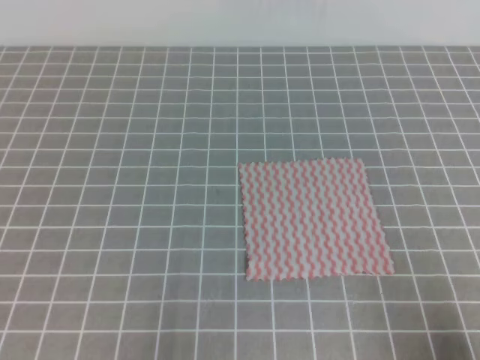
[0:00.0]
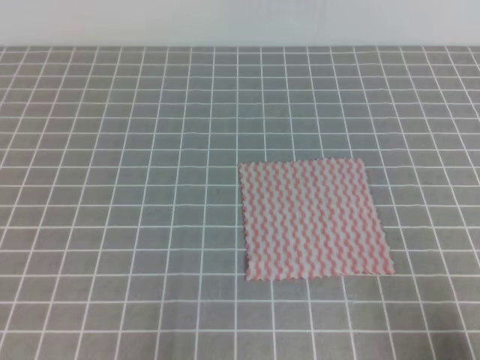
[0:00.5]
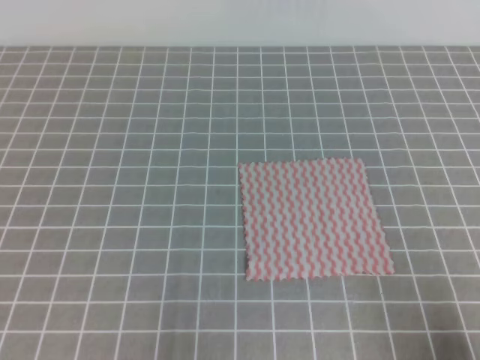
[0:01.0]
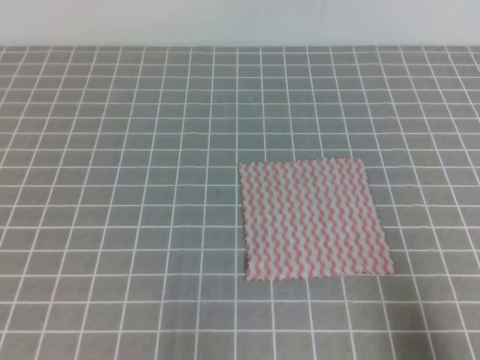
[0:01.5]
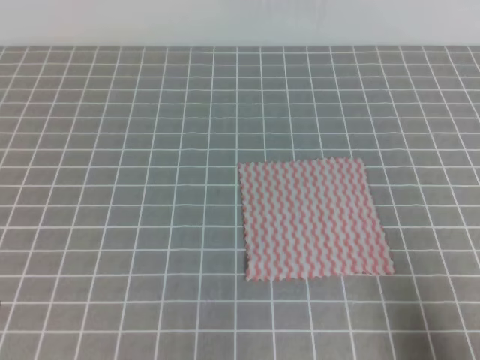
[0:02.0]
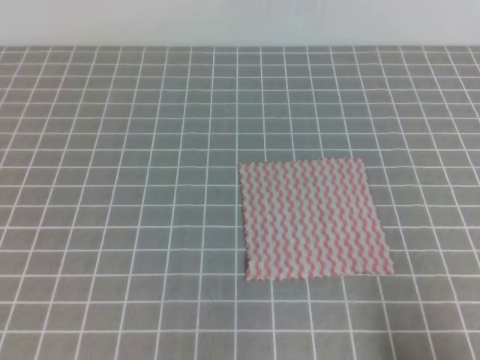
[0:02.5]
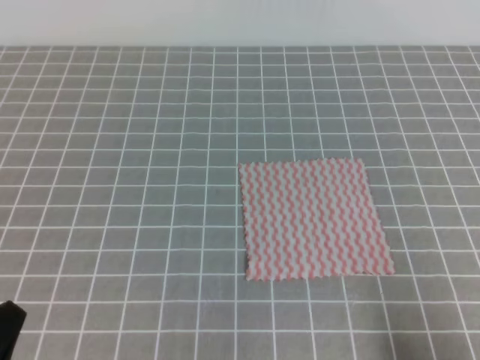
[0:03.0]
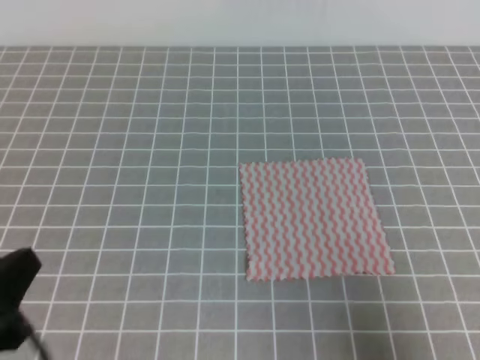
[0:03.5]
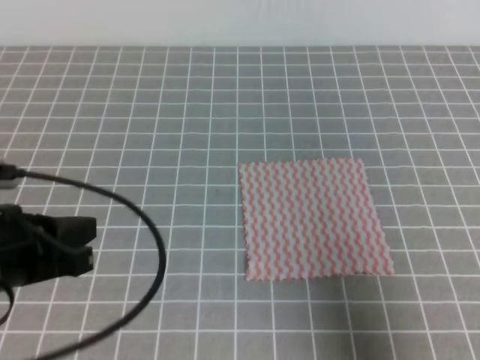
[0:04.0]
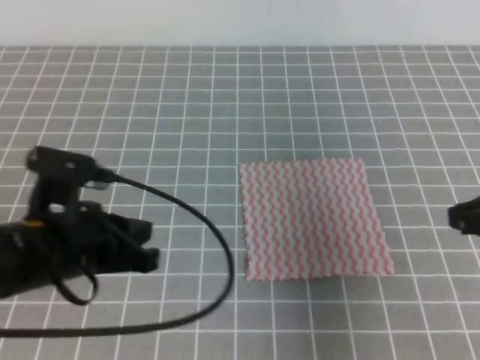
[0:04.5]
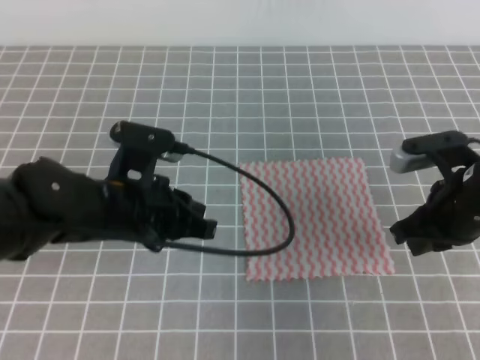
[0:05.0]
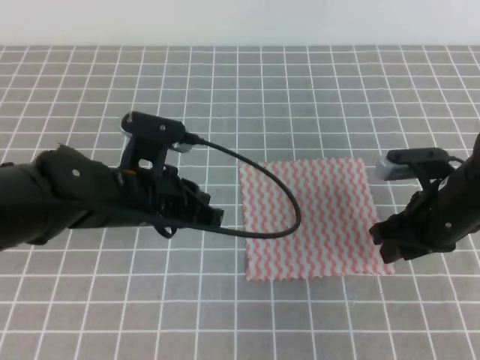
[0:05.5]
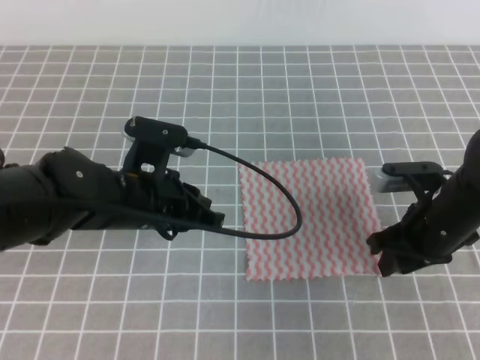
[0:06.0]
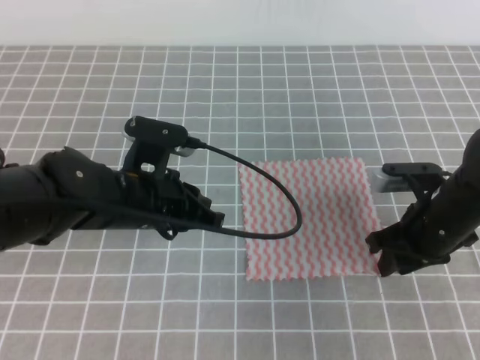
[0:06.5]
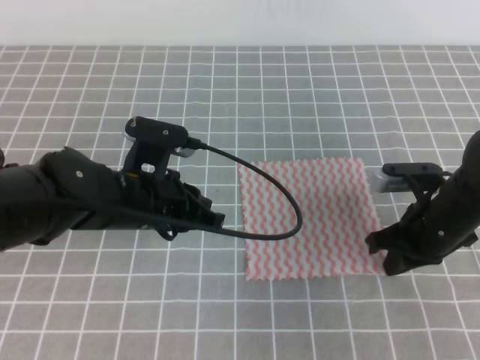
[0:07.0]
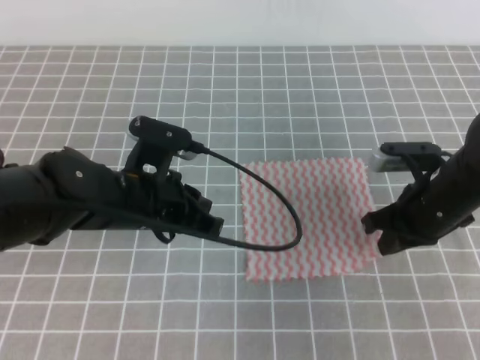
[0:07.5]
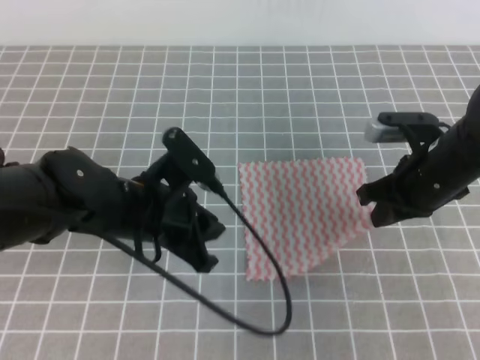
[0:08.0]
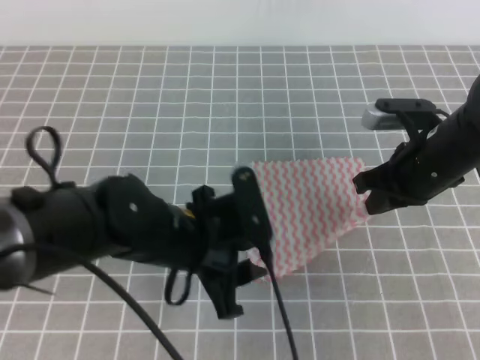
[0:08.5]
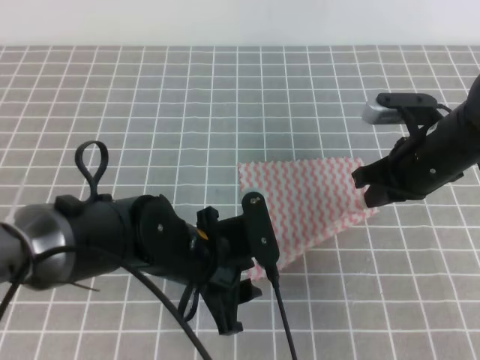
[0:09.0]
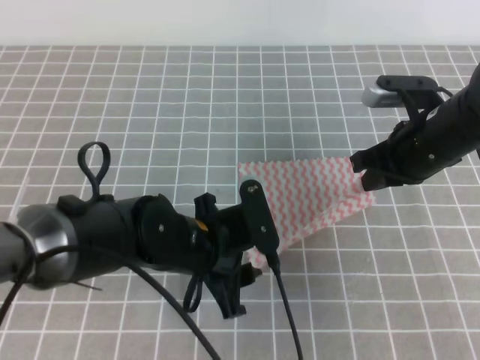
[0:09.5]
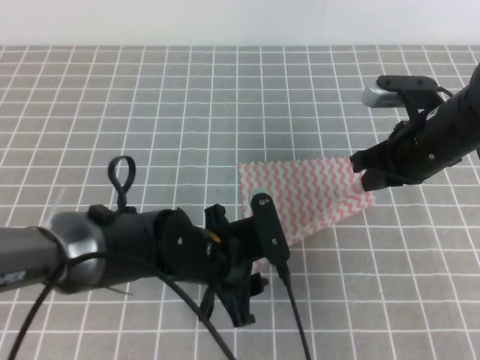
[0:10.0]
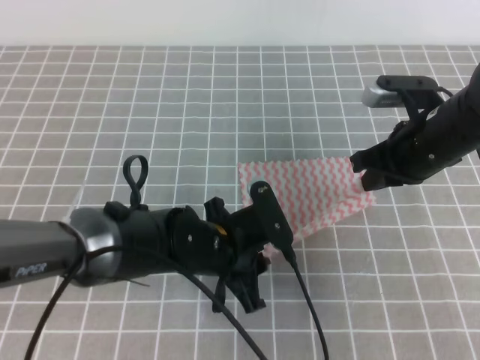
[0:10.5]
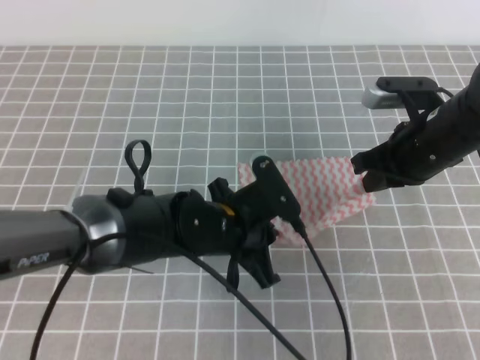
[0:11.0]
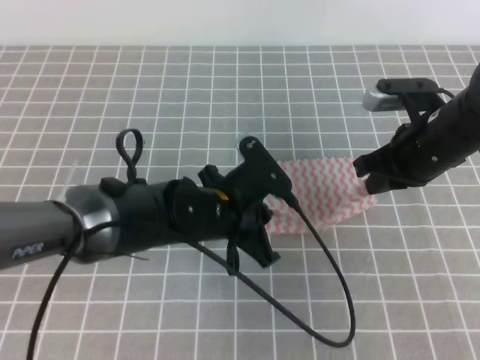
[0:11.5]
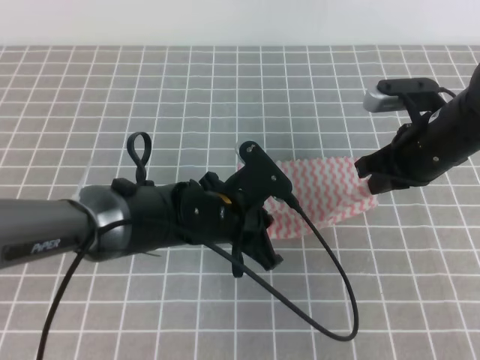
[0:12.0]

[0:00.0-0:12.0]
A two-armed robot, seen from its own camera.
0:02.0 to 0:04.0: The right gripper goes approximately 5 cm upward; the left gripper moves forward and upward, some 15 cm.
0:04.0 to 0:06.0: The right gripper shifts about 25 cm forward and downward, and opens its fingers, while the left gripper travels forward, to the right and downward by roughly 15 cm.
0:06.0 to 0:08.0: The right gripper changes place by some 5 cm, and closes. The left gripper opens.
0:08.0 to 0:10.0: The left gripper is displaced to the right and downward by some 10 cm, and opens.
0:10.0 to 0:12.0: The left gripper closes.

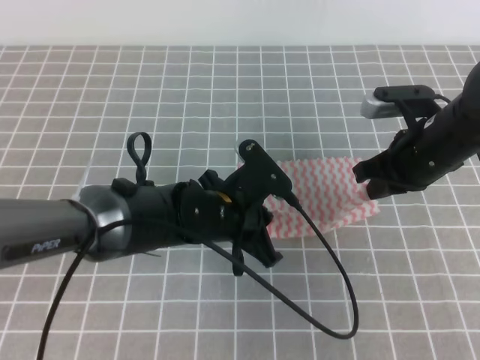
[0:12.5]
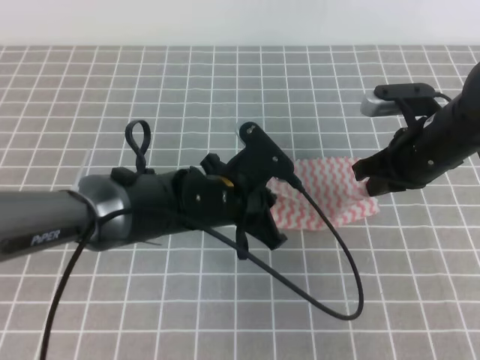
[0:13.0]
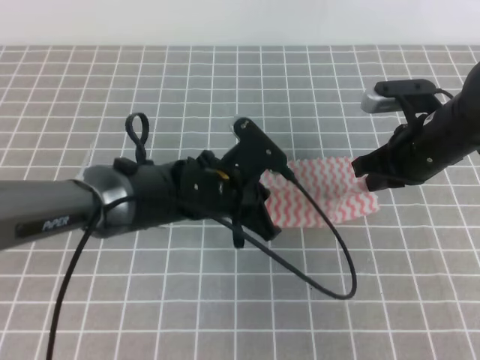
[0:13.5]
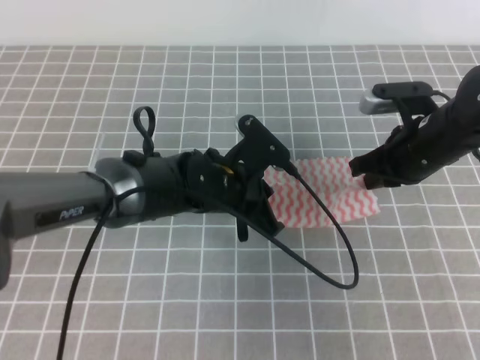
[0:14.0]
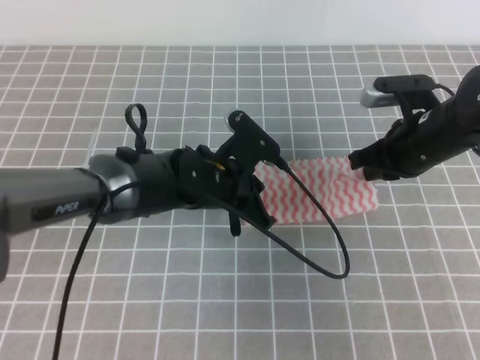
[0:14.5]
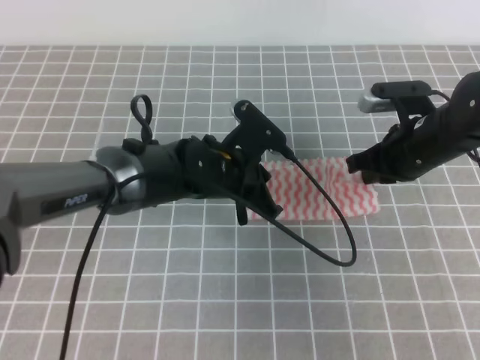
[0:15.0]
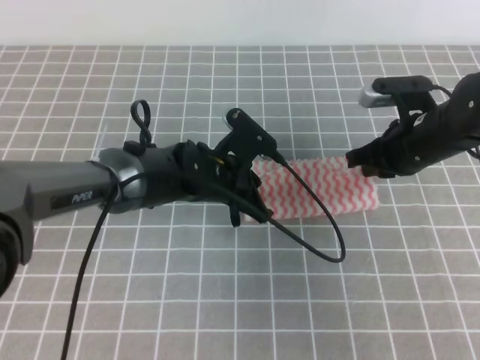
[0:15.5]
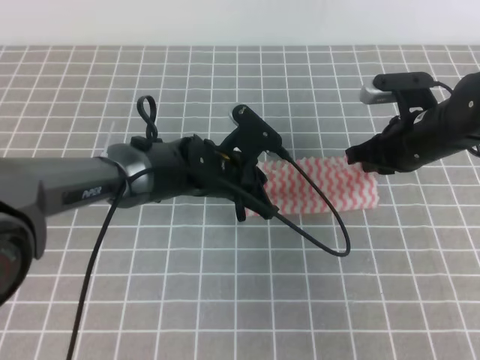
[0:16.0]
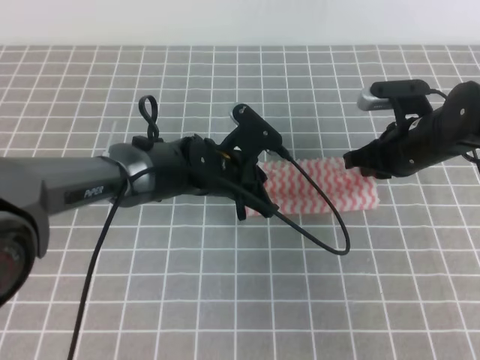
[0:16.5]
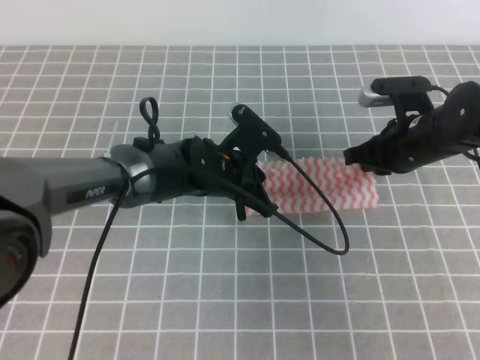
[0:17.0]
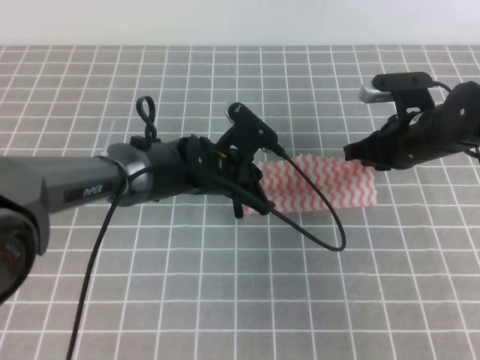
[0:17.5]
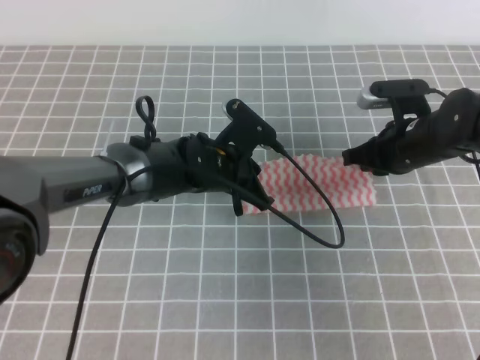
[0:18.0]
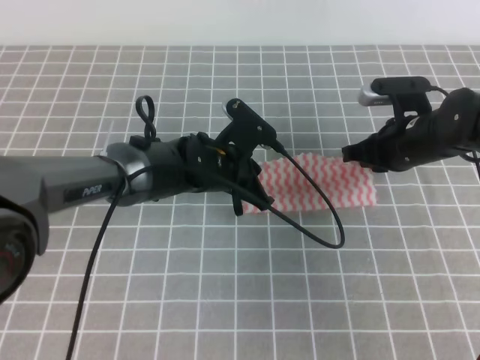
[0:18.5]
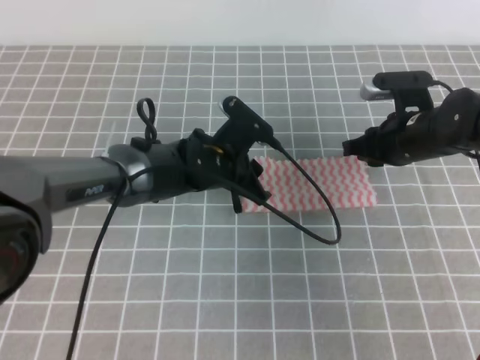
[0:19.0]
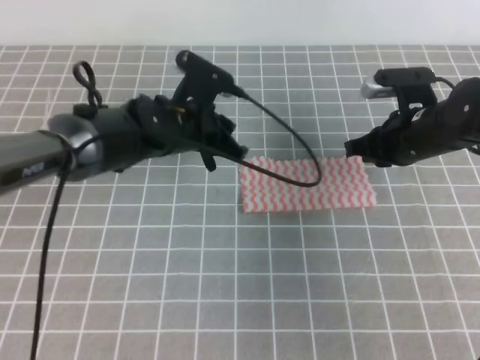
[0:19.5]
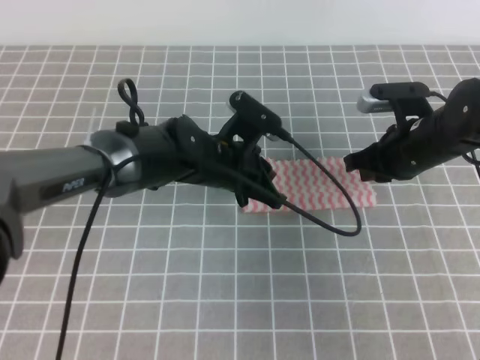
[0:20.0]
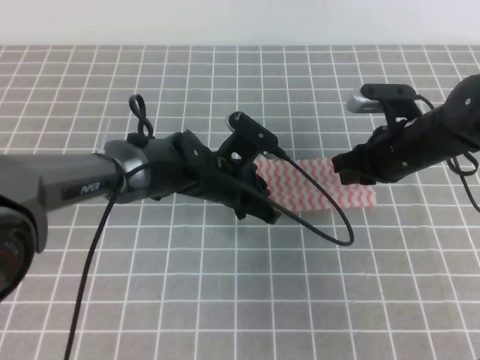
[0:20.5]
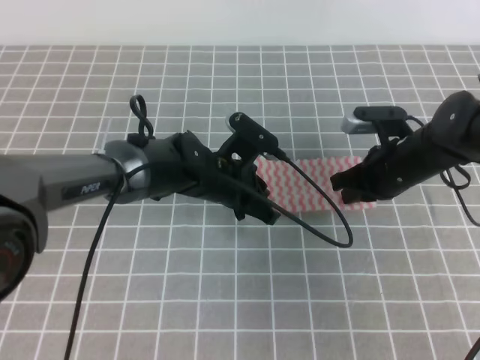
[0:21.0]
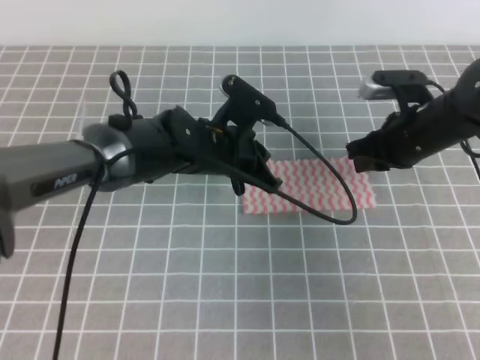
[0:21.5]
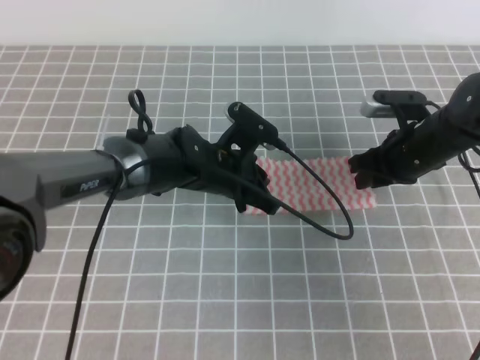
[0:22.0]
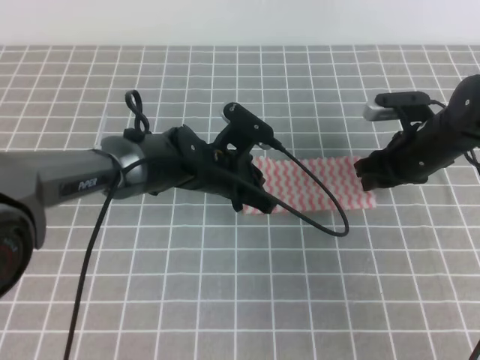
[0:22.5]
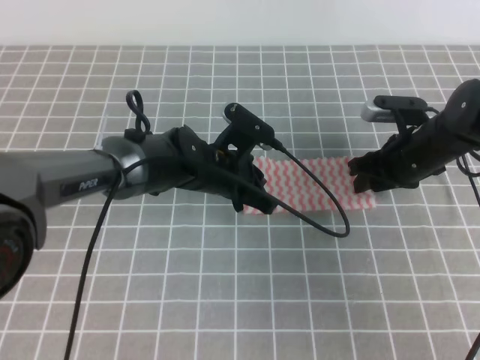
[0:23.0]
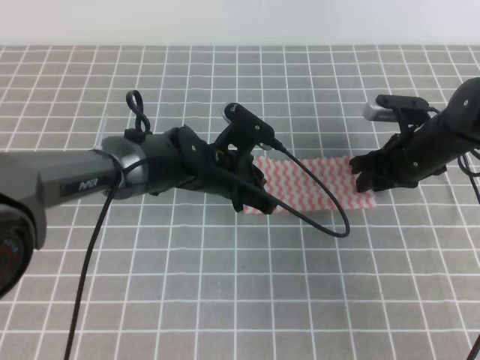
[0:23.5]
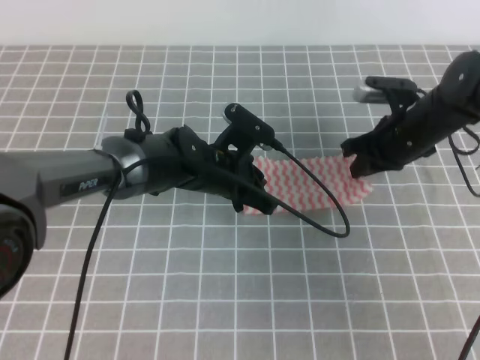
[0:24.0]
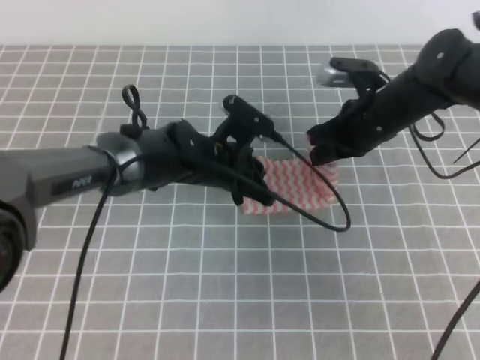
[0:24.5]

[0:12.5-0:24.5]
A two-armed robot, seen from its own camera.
0:14.5 to 0:16.5: The grippers stay close to where they were, moving slightly.
0:16.5 to 0:18.5: Both grippers stay about where they are.
0:18.5 to 0:20.5: The left gripper opens, then closes once more.
0:20.5 to 0:22.5: The right gripper opens.
0:22.5 to 0:24.5: The right gripper travels to the left by about 5 cm, and closes up.

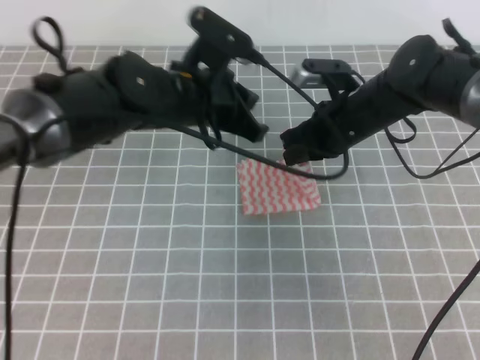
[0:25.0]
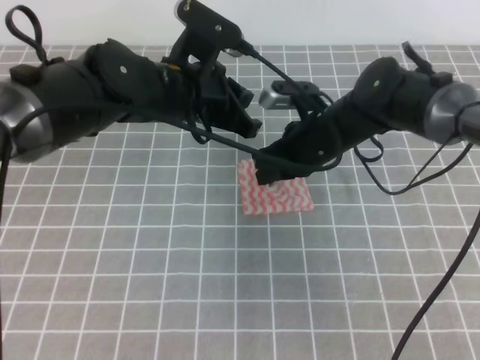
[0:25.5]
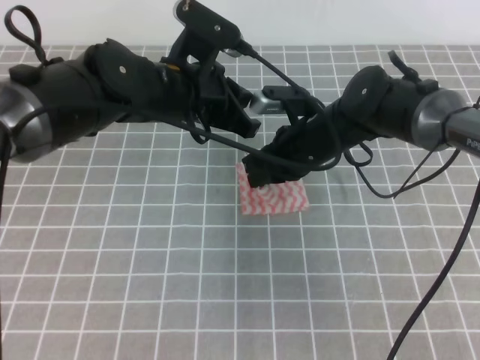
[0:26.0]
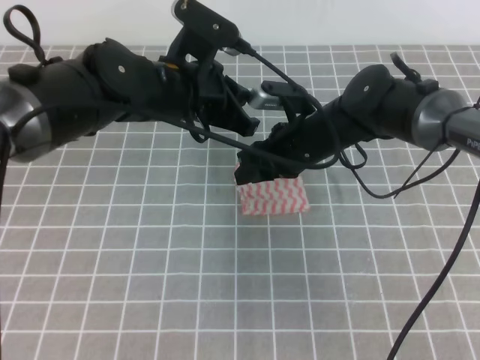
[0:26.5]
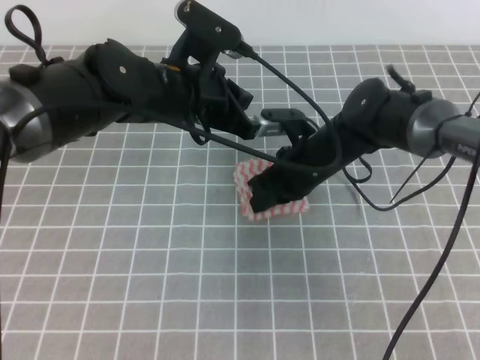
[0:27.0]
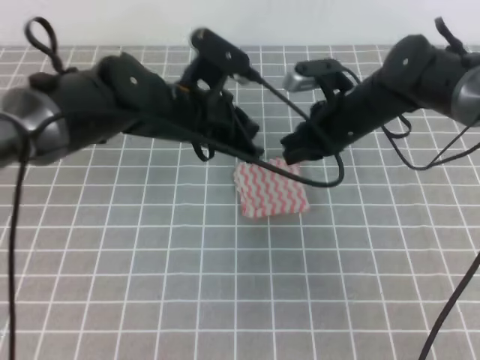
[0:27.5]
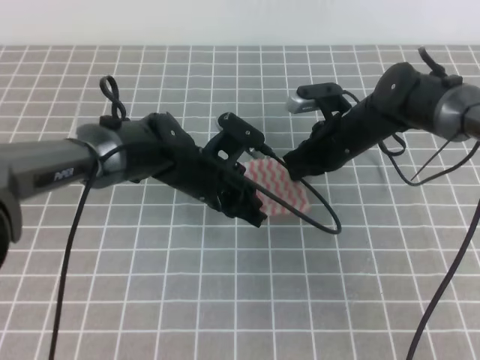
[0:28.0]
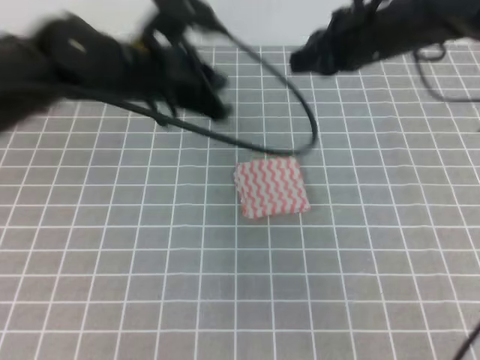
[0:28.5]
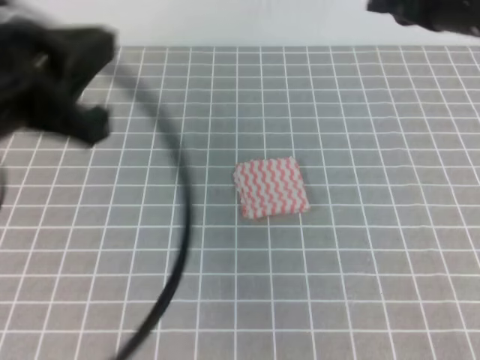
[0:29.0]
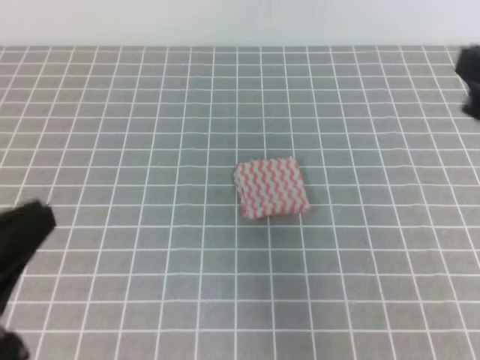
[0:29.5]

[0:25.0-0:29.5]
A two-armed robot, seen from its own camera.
0:25.0 to 0:27.0: The right gripper shifts by about 5 cm, and opens, then closes once more.
0:27.0 to 0:29.5: The right gripper goes approximately 30 cm backward, upward and to the right. Meanwhile the left gripper is displaced backward and to the left by approximately 30 cm.
